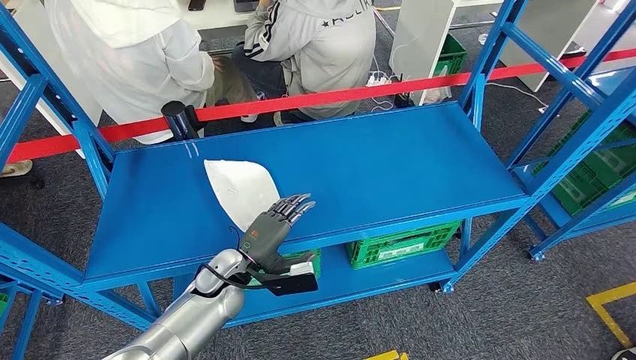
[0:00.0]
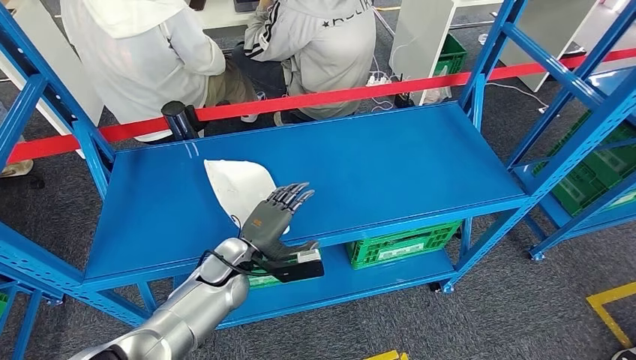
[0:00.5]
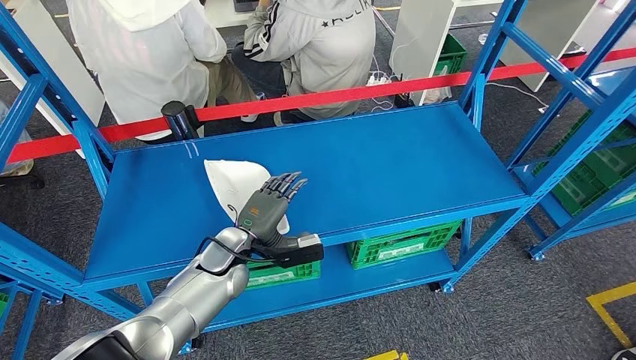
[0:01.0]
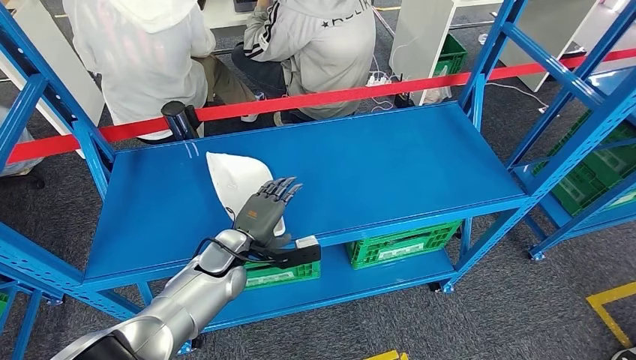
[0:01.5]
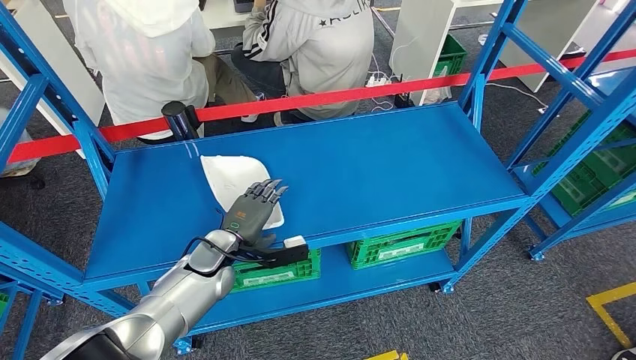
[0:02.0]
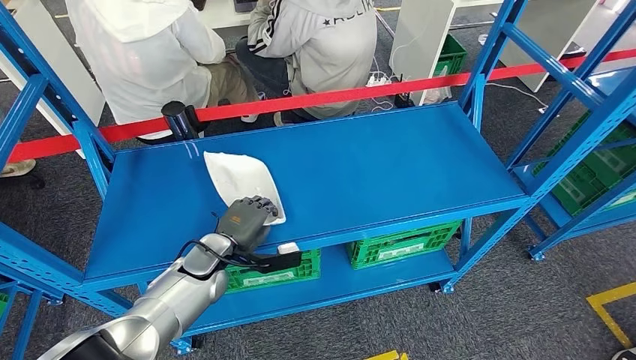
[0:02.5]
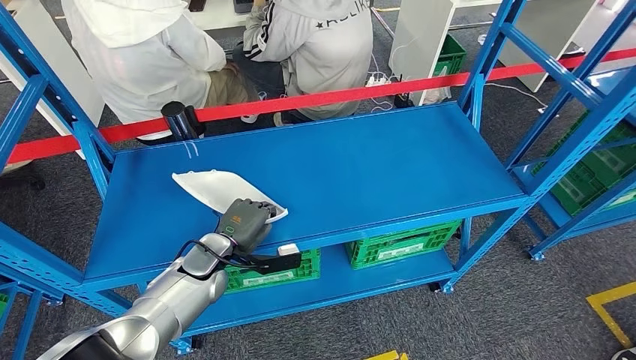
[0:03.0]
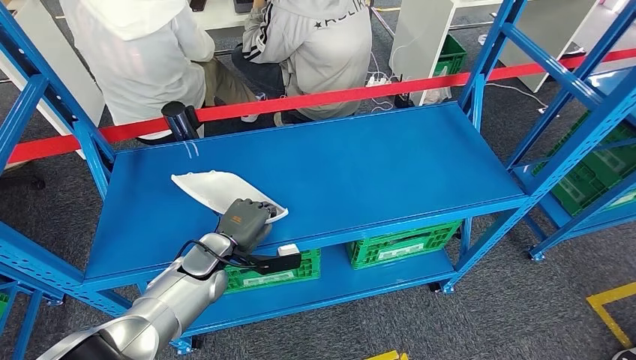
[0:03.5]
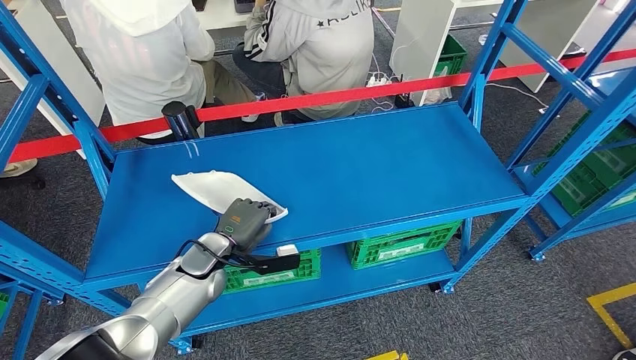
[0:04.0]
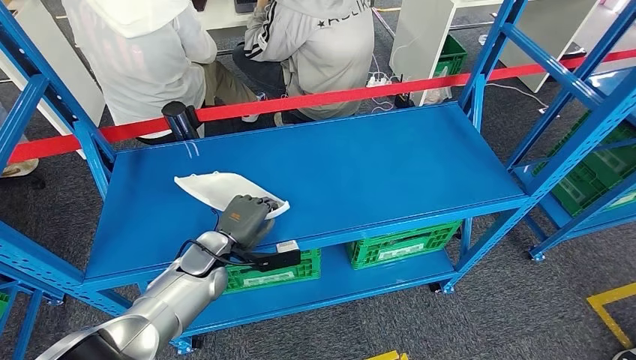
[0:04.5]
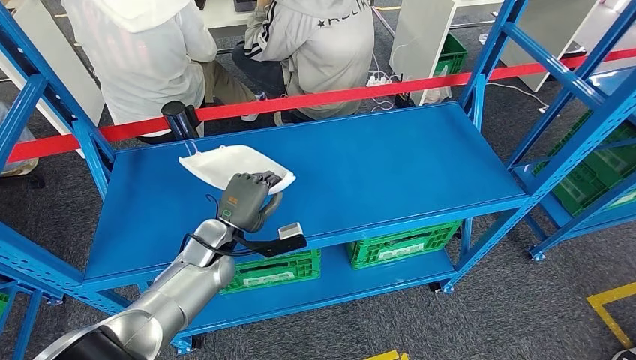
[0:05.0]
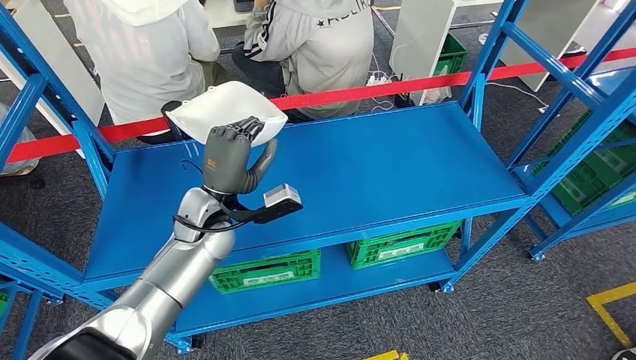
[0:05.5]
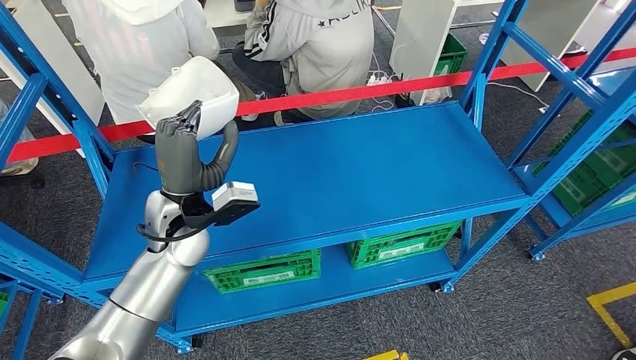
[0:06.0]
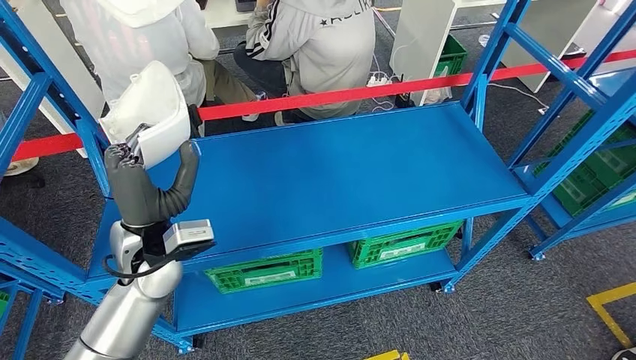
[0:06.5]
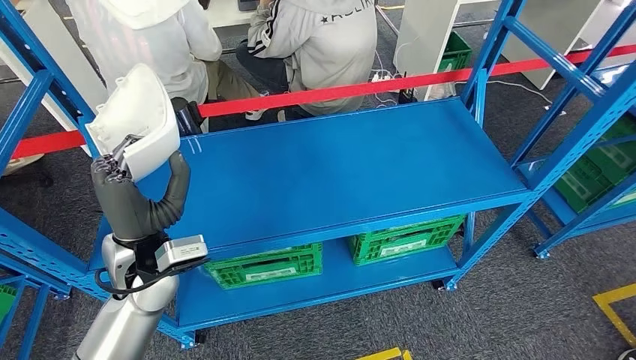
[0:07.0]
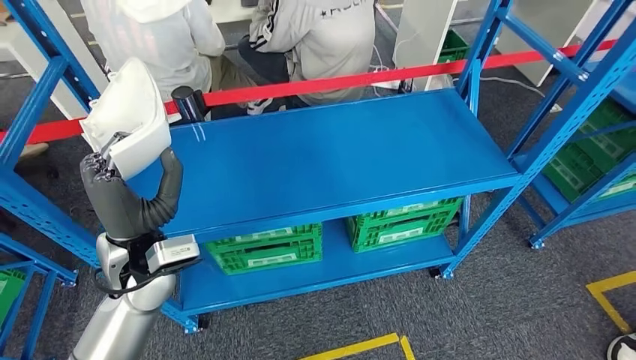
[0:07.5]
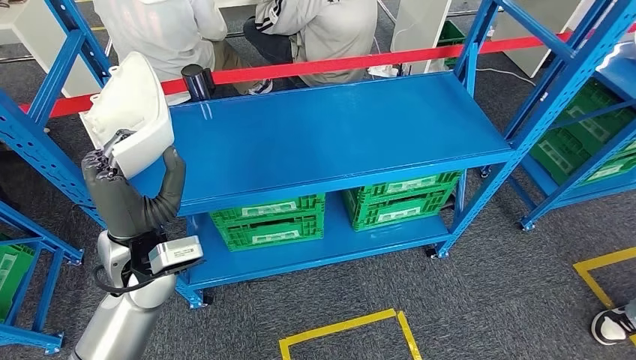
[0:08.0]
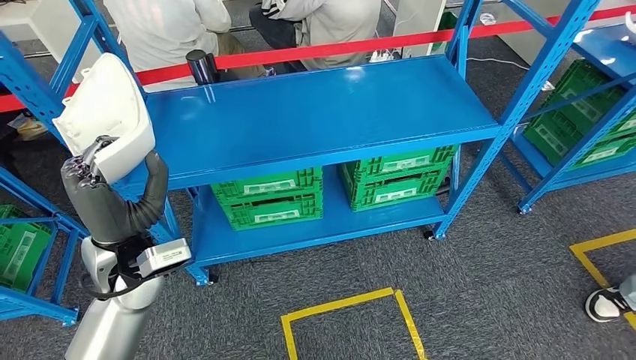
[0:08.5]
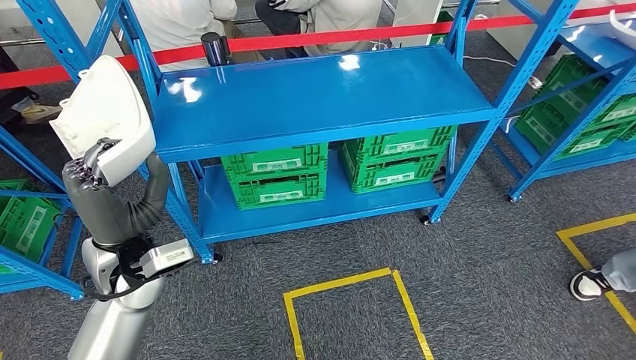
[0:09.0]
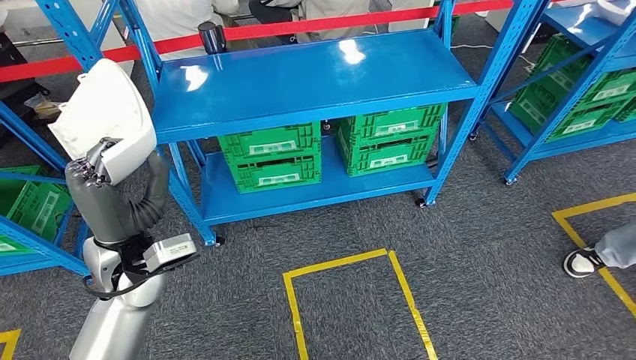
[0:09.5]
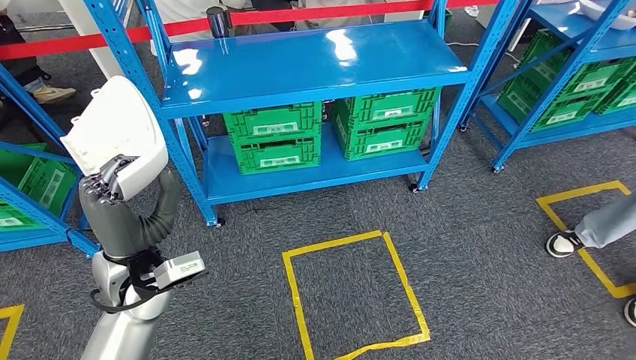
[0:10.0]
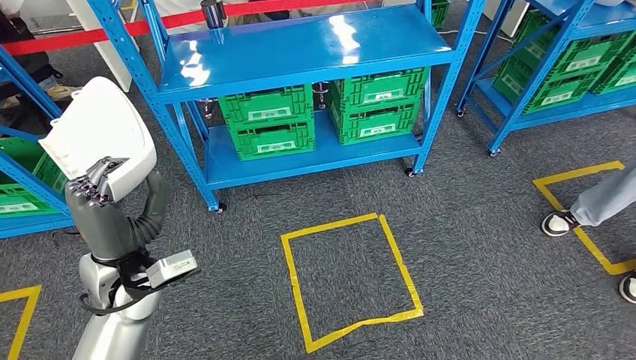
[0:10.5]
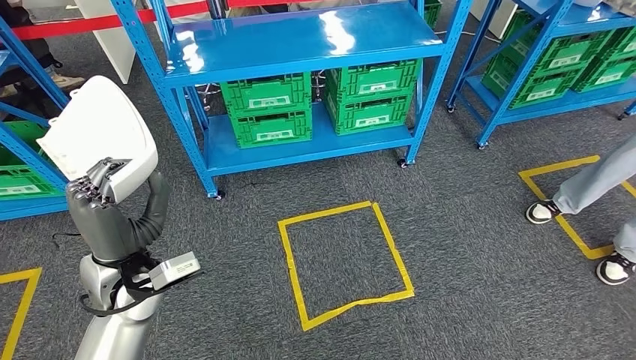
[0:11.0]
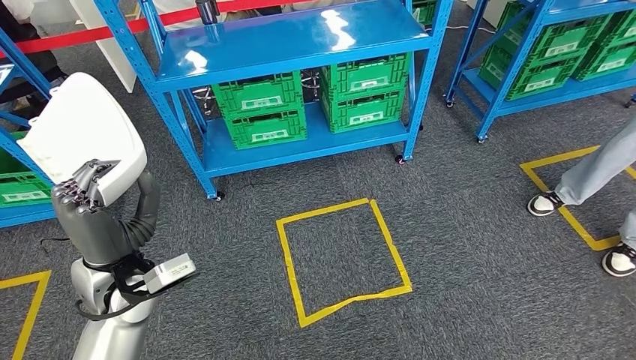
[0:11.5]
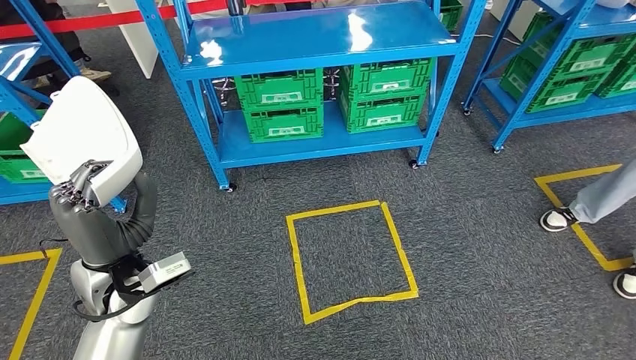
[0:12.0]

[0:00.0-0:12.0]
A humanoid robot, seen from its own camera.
Step, 0:00.0 to 0:07.5: Pick up the large material from the shelf.
0:02.0 to 0:04.0: The hands make only small movements.
0:04.0 to 0:06.0: The left hand travels upward by some 15 cm.

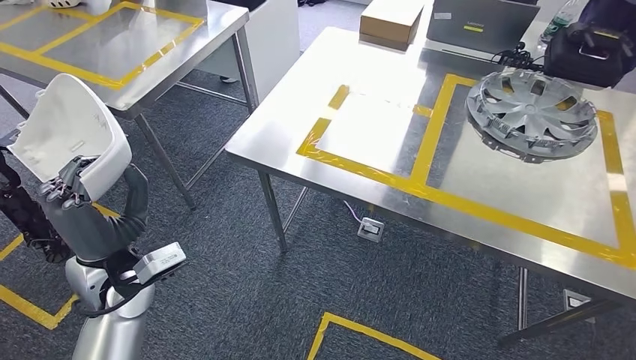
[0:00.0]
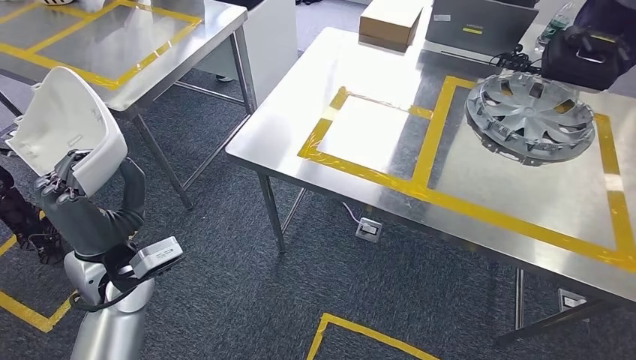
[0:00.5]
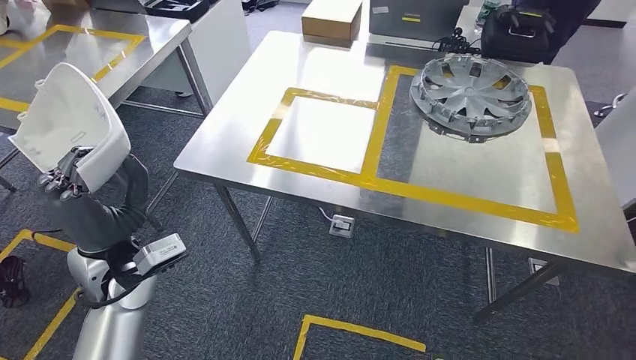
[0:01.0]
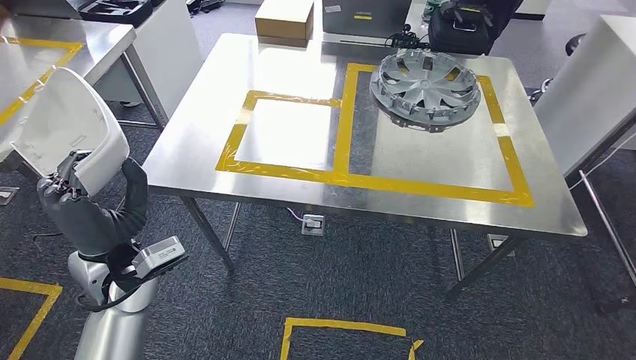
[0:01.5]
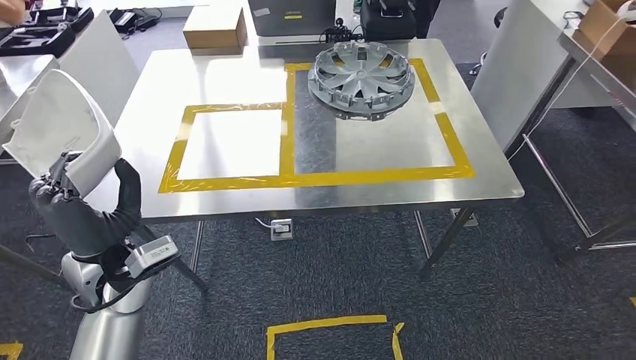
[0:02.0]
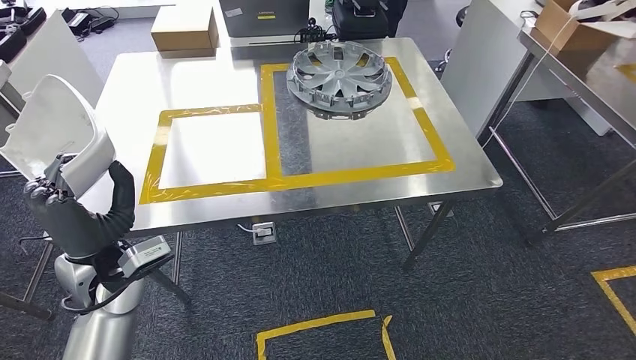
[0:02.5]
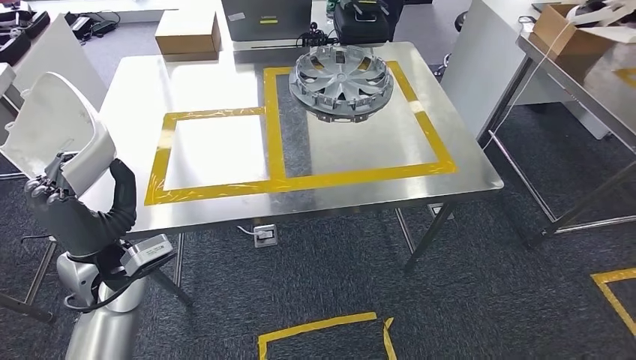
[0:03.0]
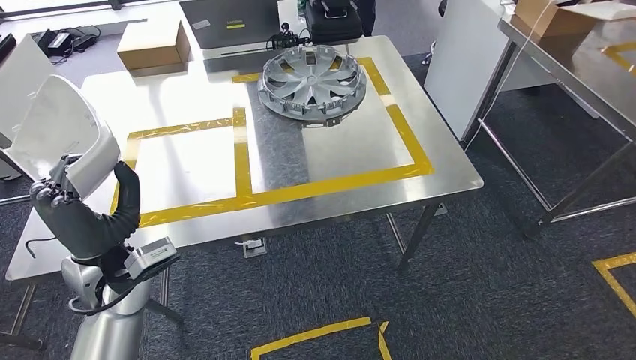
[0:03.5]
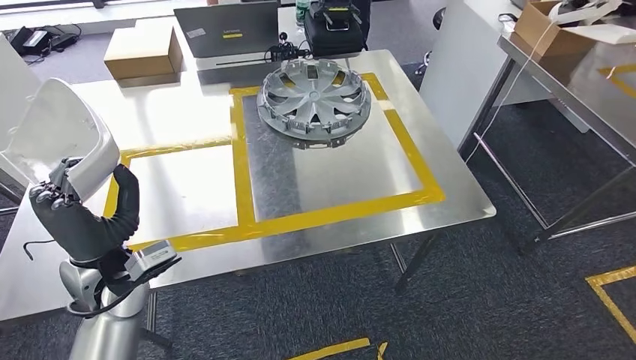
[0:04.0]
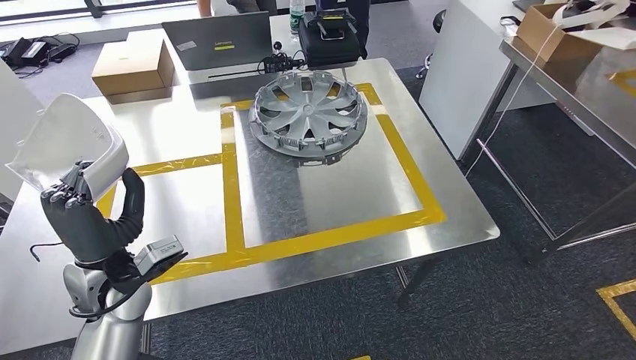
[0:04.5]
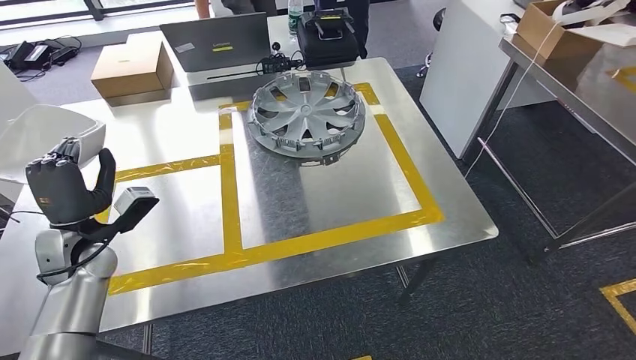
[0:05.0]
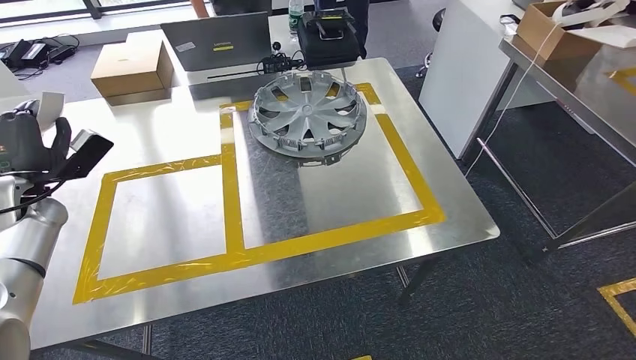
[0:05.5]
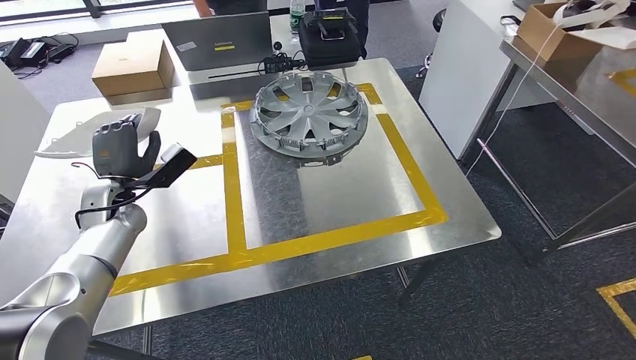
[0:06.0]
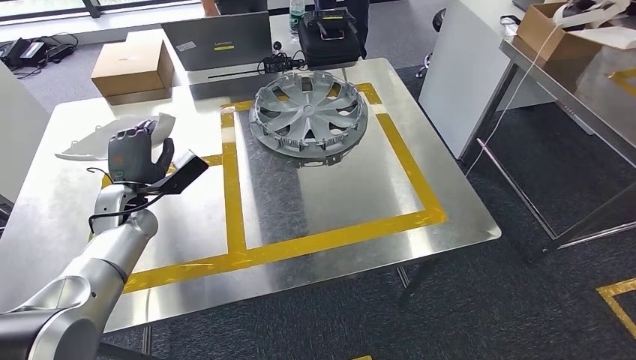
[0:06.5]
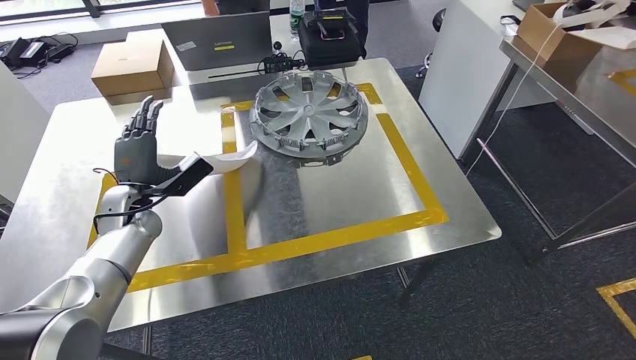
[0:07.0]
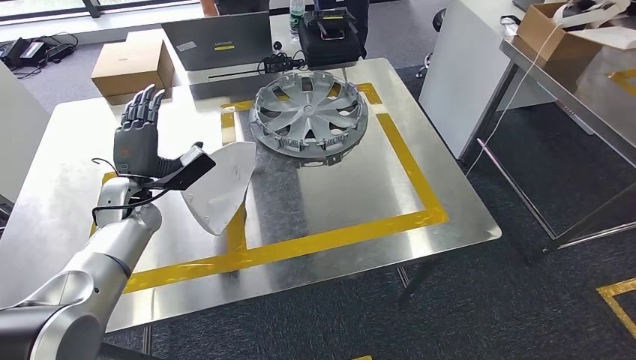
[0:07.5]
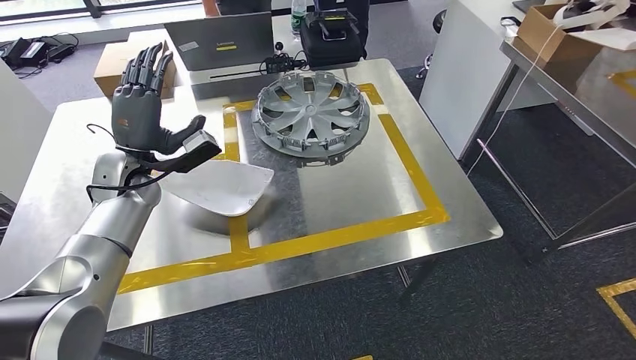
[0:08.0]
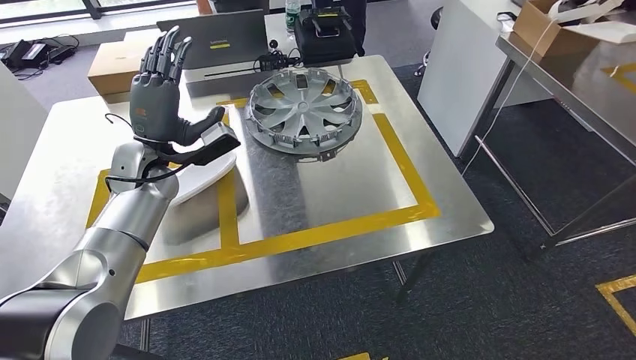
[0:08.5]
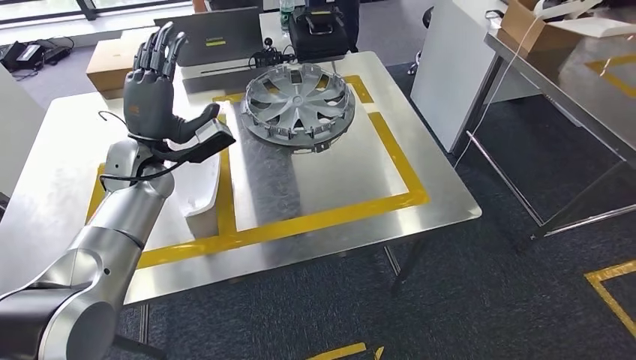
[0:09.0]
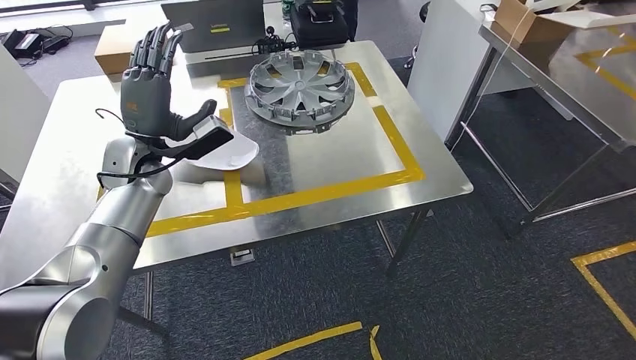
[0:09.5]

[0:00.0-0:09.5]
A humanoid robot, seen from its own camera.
Step, 0:00.0 to 0:04.0: Move the large material to the workbench.
Step, 0:04.5 to 0:09.0: Insert the large material into the corresponding slot on the workbench.
0:05.5 to 0:07.5: The left hand goes roughly 15 cm to the right.
